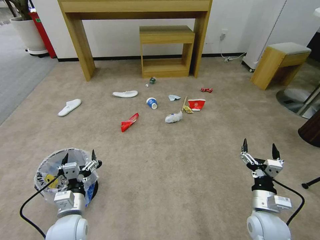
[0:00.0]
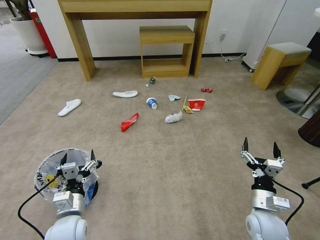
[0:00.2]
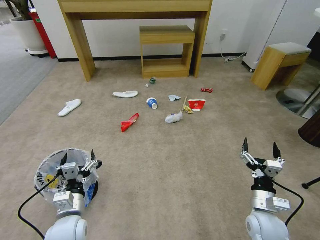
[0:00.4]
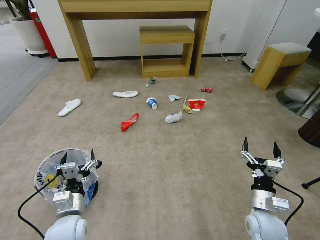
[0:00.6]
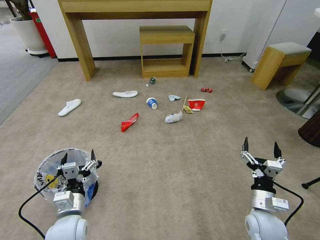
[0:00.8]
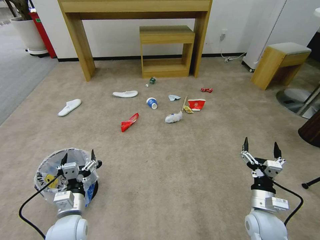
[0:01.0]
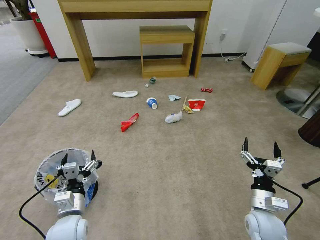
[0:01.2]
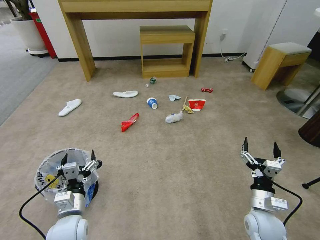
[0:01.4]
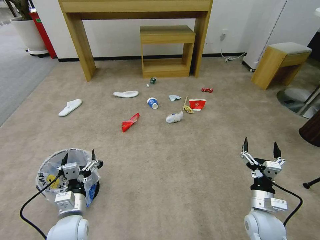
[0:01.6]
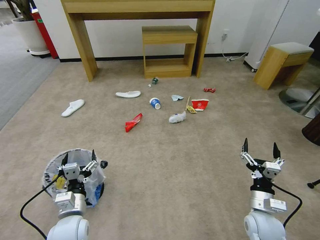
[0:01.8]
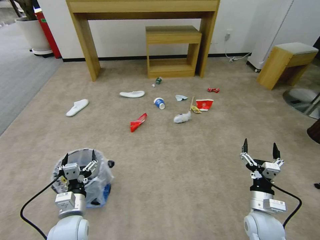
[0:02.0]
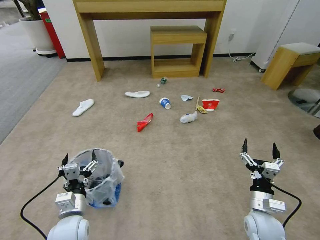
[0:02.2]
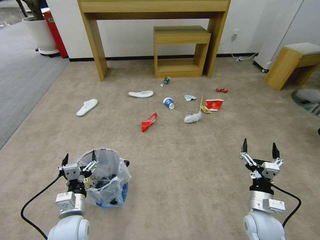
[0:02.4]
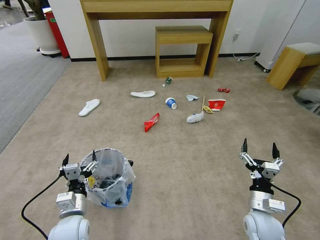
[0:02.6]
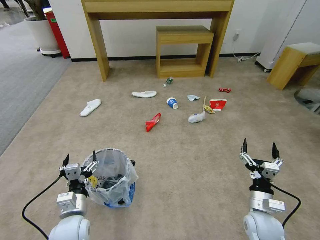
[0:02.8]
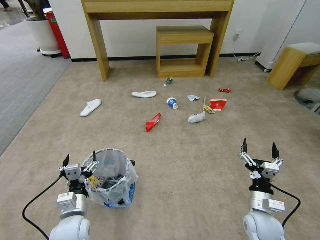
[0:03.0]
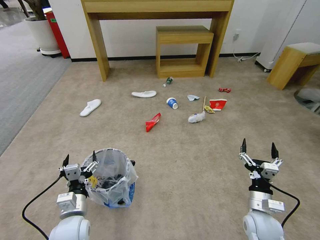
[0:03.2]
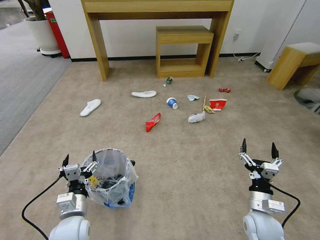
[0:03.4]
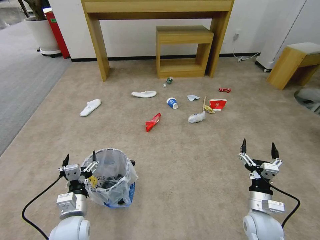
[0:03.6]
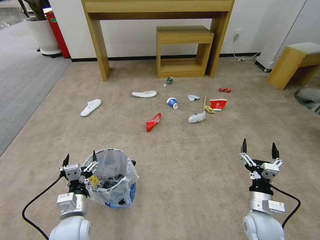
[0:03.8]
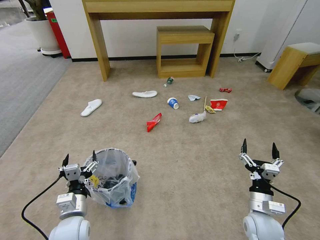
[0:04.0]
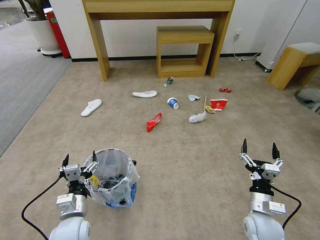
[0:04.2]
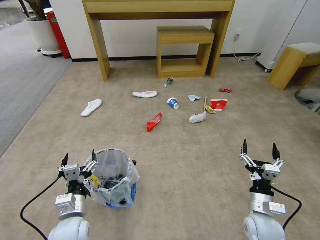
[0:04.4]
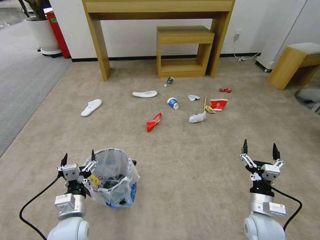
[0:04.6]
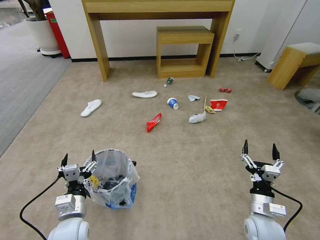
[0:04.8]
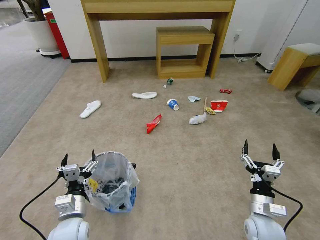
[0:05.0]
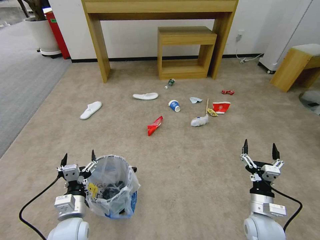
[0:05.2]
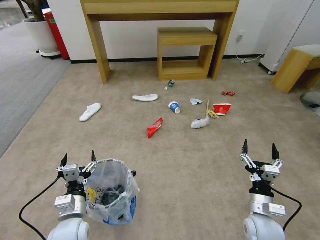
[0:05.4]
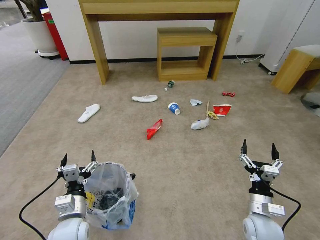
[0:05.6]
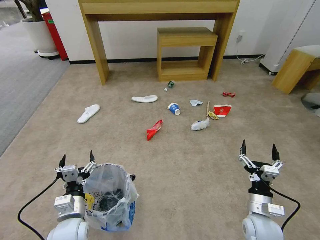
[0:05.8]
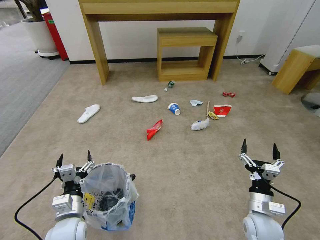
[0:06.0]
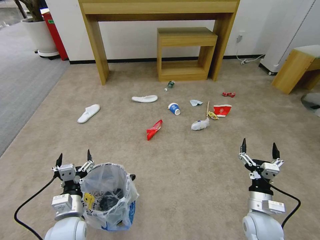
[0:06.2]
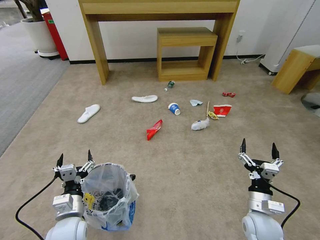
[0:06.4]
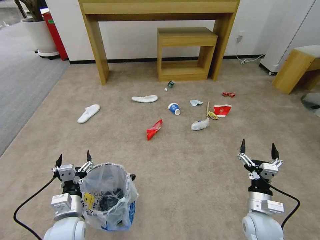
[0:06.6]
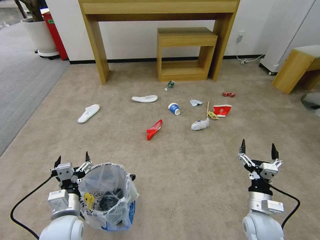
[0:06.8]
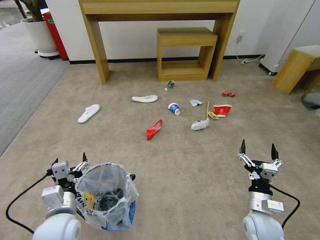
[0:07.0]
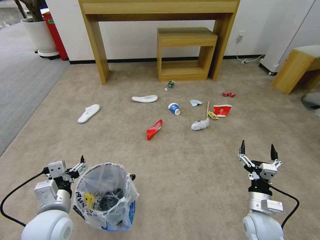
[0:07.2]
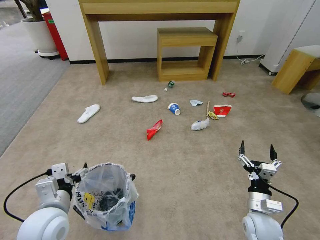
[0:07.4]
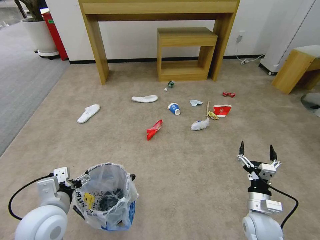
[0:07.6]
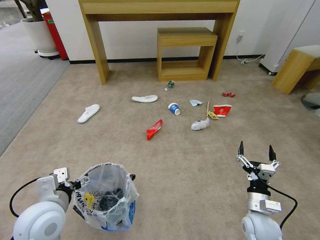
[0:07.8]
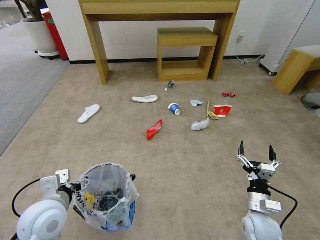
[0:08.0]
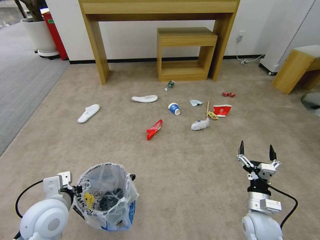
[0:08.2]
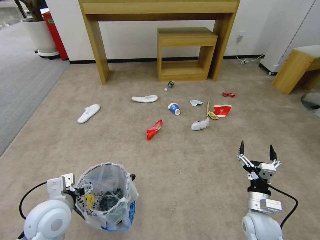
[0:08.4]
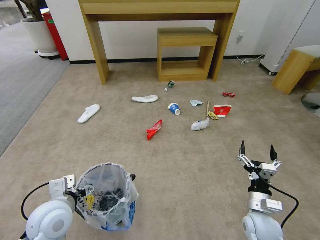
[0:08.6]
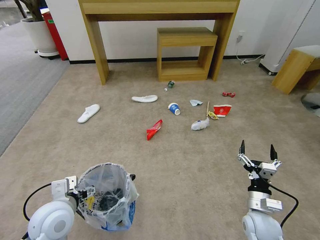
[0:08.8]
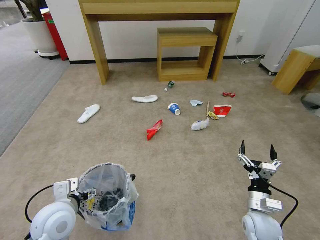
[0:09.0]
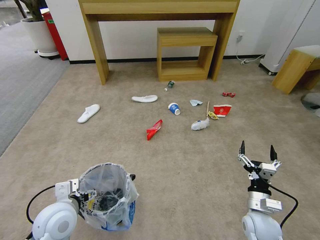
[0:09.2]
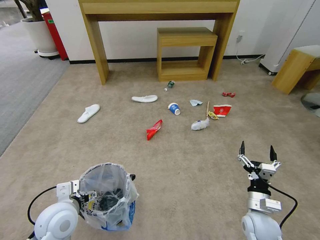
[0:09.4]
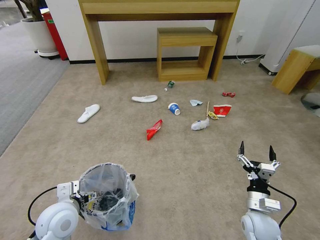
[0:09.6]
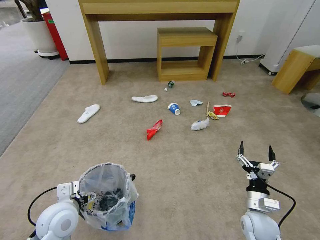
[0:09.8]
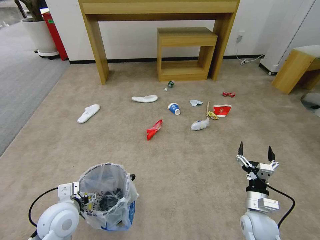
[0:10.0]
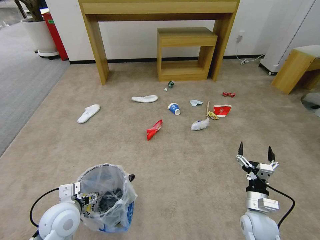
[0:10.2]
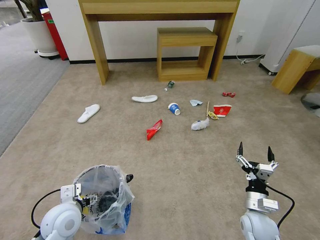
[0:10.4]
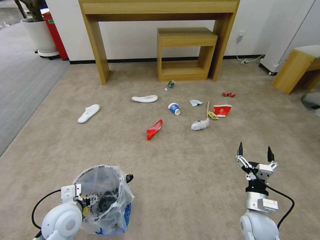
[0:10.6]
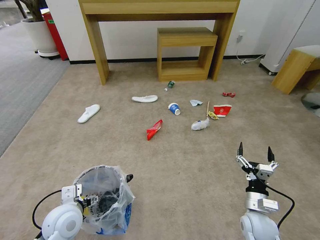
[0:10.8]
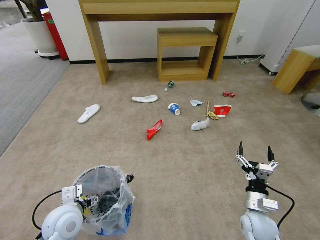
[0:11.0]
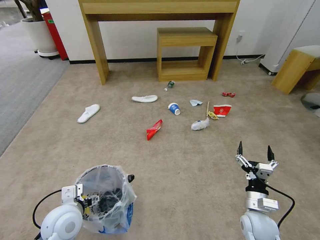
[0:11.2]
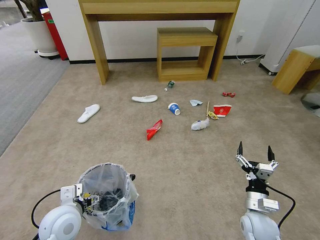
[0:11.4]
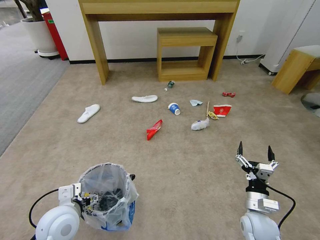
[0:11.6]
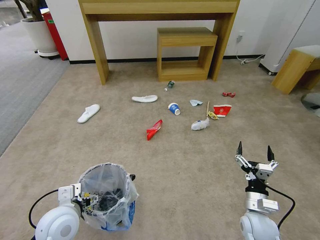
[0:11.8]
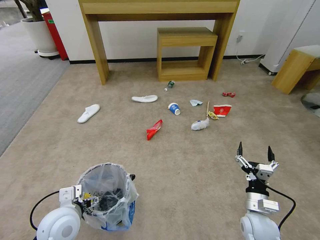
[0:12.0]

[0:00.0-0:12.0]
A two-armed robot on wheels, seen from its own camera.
Task of the whole recording: Pick up the trash bin and place the garbage on the floor into it.
0:03.0 to 0:06.0: Neither gripper changes place.
0:06.0 to 0:07.6: The left gripper moves upward, some 10 cm.
0:07.6 to 0:09.0: The grippers make only small movements.
0:09.0 to 0:12.0: The grippers make only small movements.

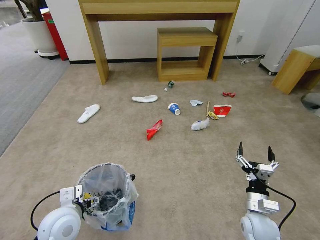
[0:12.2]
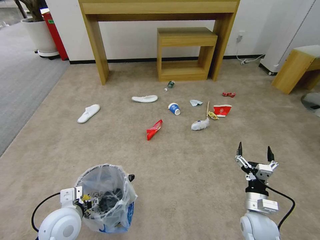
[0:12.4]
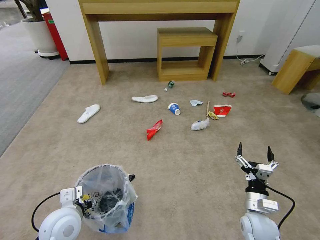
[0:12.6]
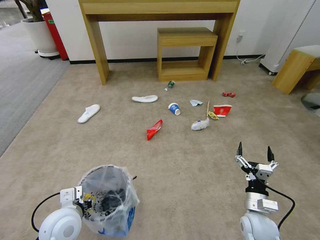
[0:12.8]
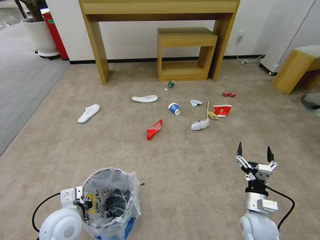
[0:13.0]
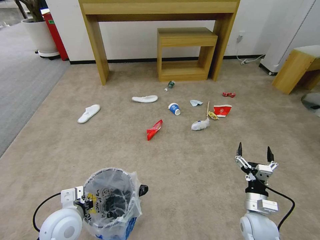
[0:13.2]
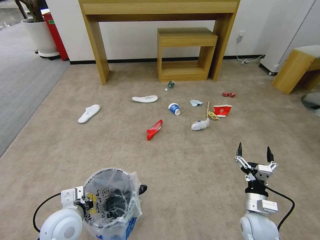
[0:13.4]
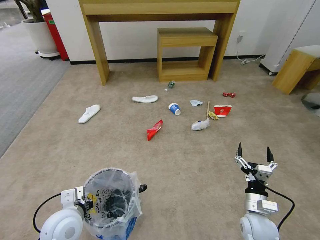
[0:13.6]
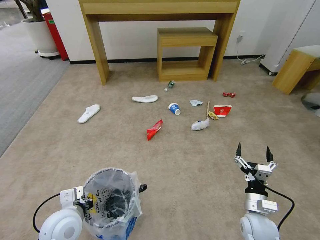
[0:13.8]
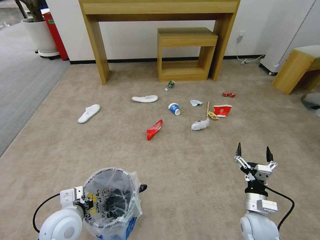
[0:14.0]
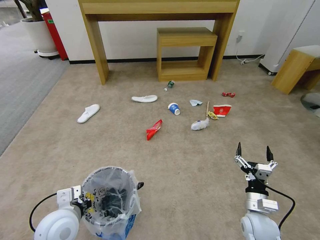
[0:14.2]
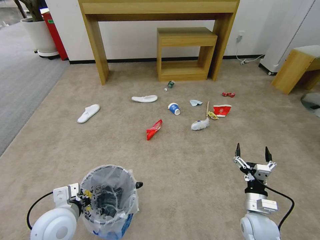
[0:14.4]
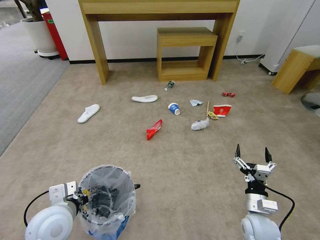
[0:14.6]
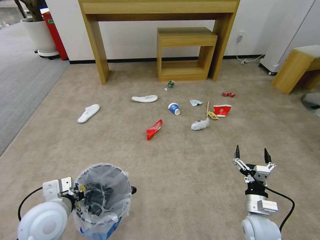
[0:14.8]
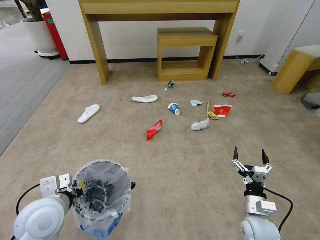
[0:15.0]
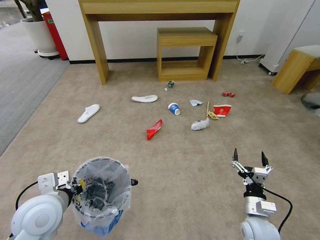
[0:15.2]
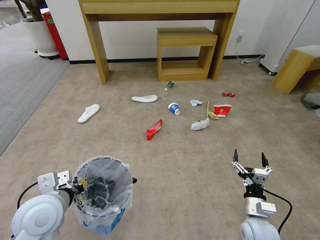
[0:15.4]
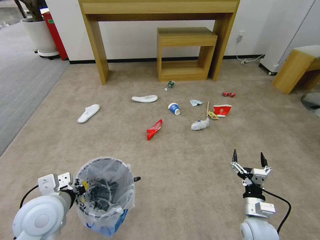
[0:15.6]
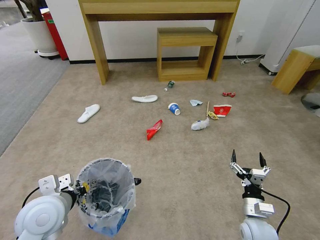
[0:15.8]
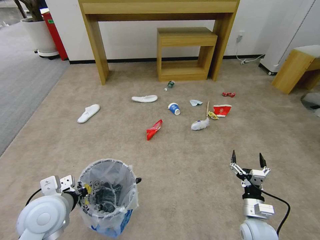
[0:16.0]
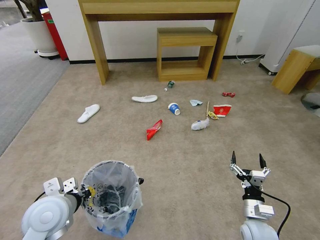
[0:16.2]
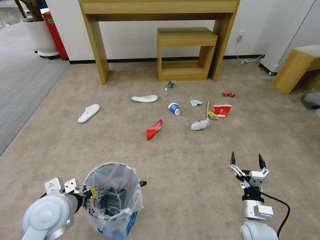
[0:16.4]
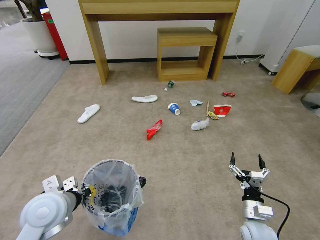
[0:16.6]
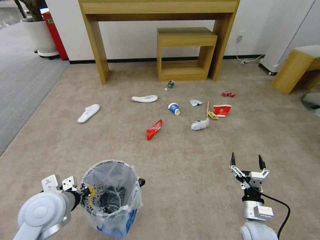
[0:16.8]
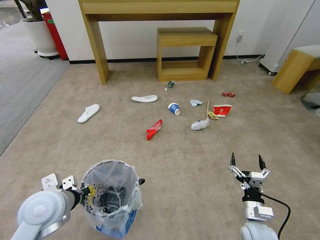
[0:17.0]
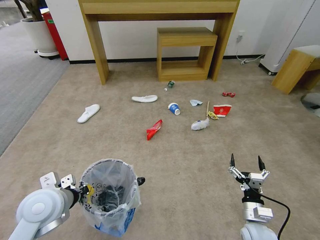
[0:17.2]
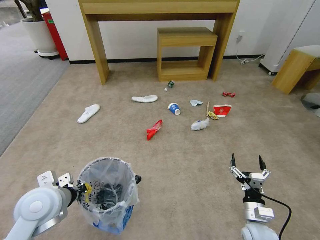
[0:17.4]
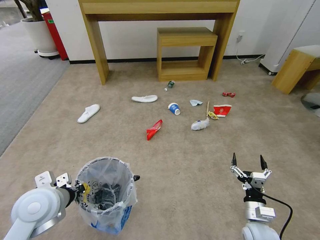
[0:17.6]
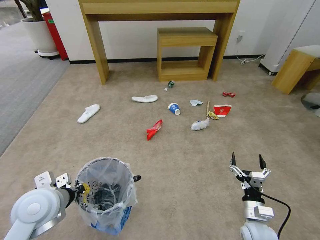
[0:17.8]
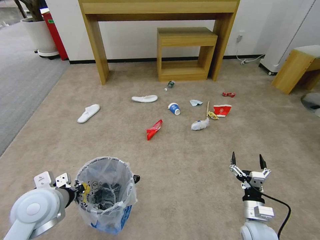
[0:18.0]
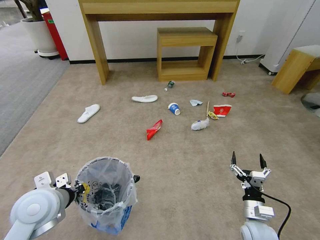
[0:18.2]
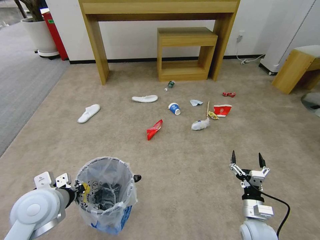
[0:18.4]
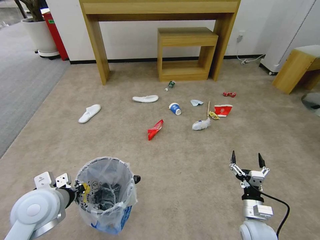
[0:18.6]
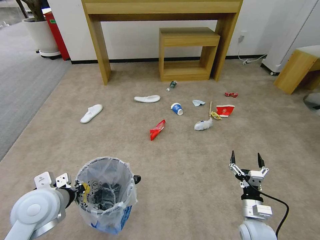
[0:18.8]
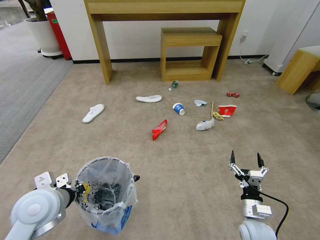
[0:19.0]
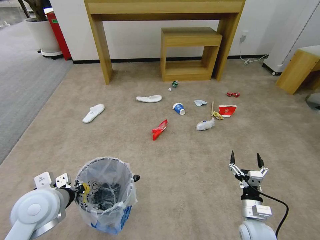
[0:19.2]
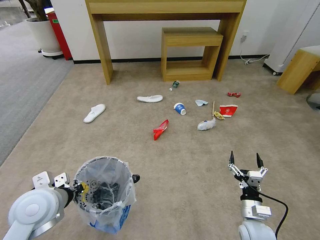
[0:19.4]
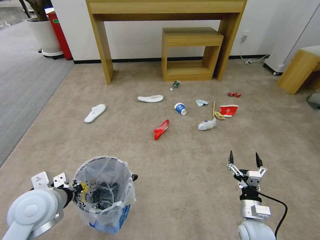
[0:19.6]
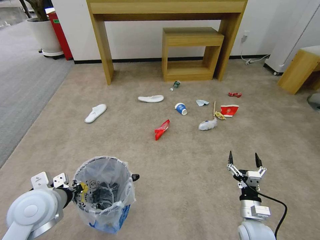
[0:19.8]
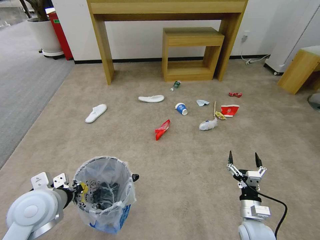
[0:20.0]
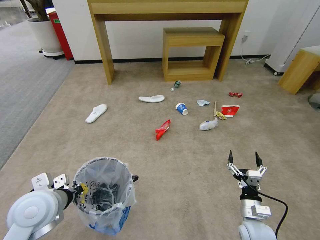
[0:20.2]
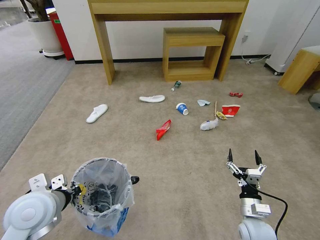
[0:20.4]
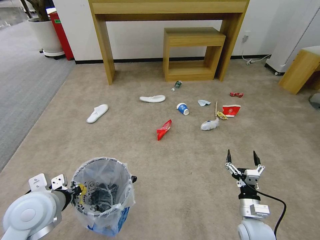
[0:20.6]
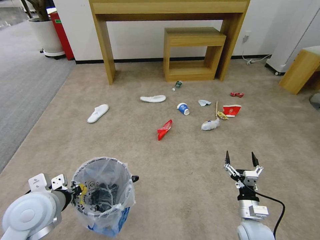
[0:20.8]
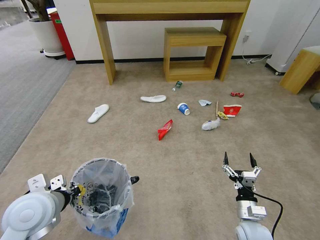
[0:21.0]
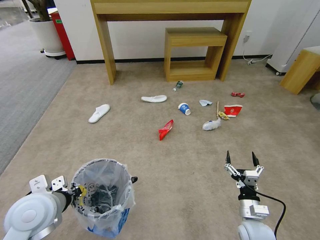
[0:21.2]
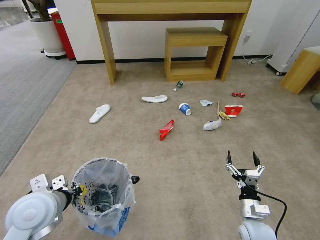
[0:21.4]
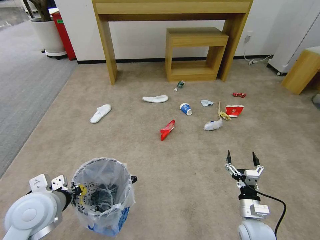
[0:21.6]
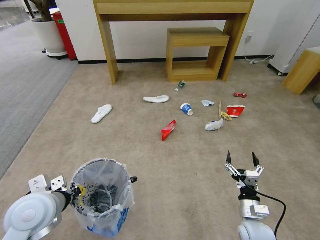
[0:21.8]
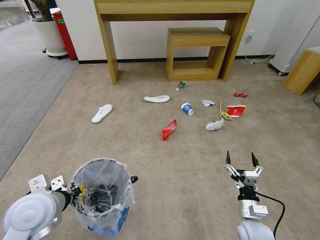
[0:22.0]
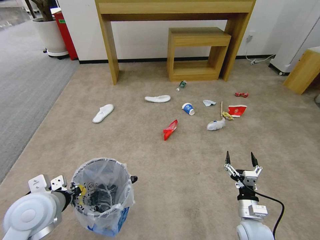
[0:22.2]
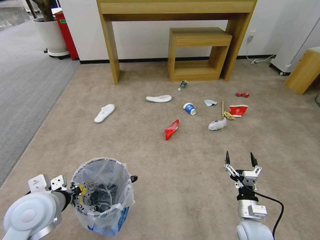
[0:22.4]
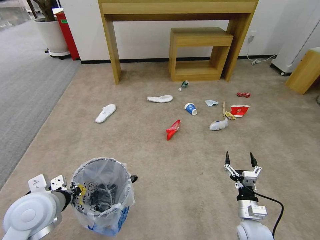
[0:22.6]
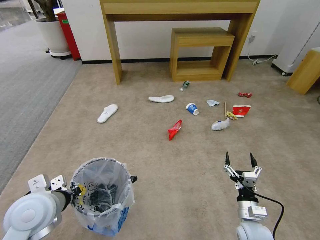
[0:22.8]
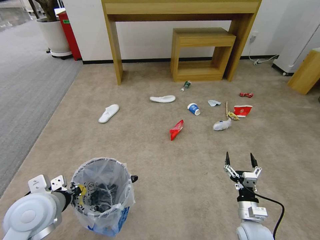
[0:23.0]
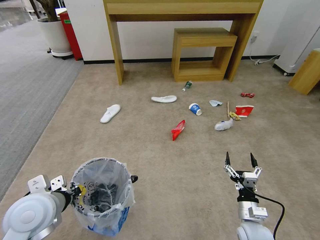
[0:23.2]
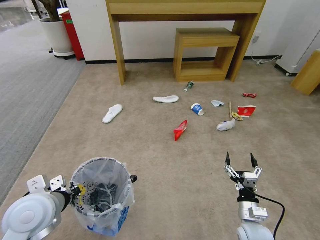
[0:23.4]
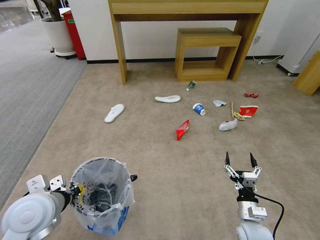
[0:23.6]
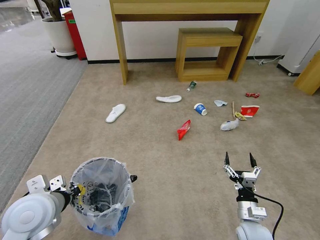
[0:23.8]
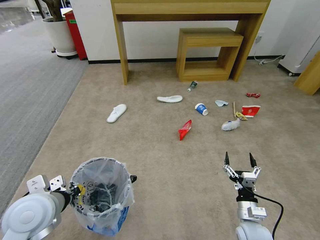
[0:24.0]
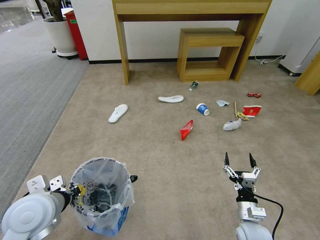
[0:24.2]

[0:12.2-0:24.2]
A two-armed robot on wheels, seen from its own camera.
Task of the whole recording: Pick up the trash bin and place the garbage on the floor into it.
0:12.2 to 0:13.8: The left gripper closes its fingers.
0:13.8 to 0:15.2: The left gripper is displaced upward by approximately 5 cm.
0:15.2 to 0:18.2: The grippers move only a little.
0:18.2 to 0:19.8: Both grippers stay about where they are.
0:19.8 to 0:21.2: The grippers stay close to where they were, moving slightly.
0:21.2 to 0:24.2: Neither gripper changes place.
